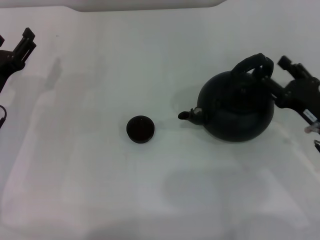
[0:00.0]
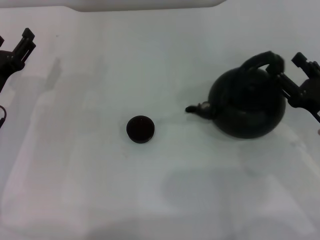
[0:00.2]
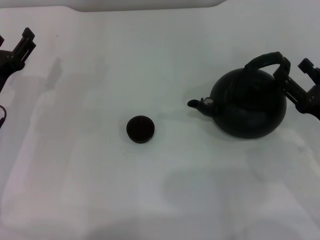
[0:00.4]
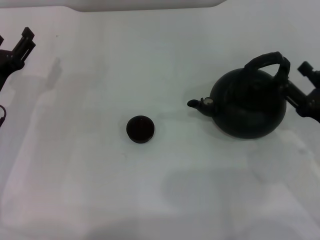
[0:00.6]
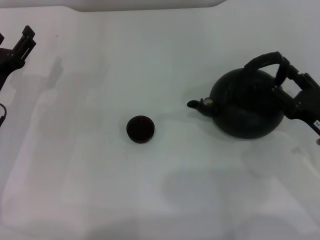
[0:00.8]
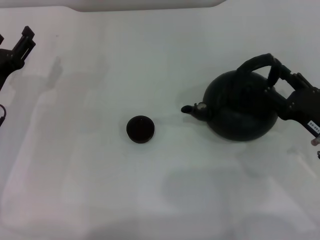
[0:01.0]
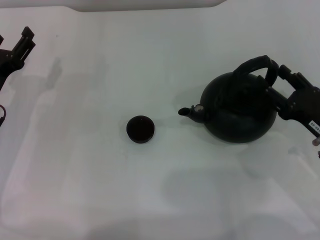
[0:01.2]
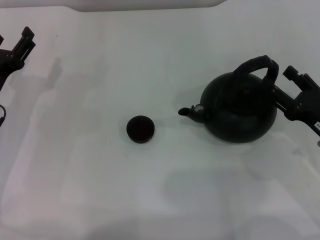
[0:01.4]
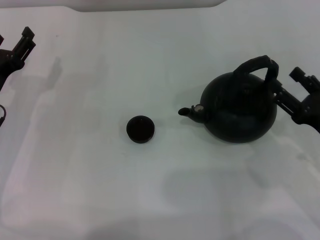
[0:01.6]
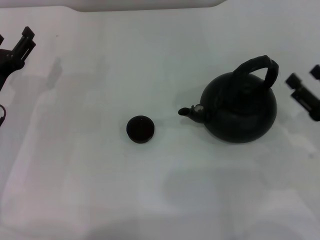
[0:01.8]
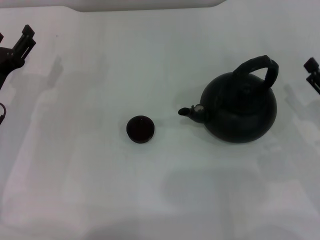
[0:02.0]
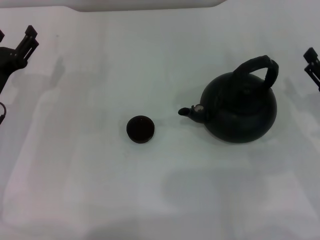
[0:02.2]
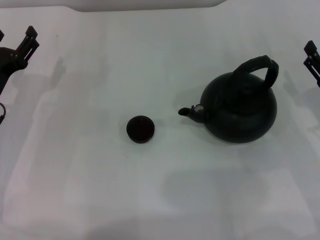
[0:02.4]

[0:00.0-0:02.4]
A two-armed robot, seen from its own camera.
Task of the whole recording: Grasp the handle of the teapot with one hand and pour tea into the teacup.
0.0 to 1.2 s: The grippers move only a little.

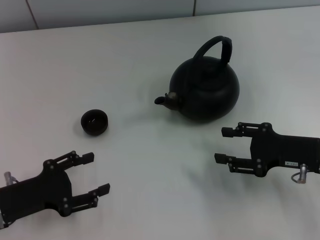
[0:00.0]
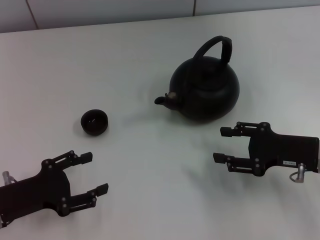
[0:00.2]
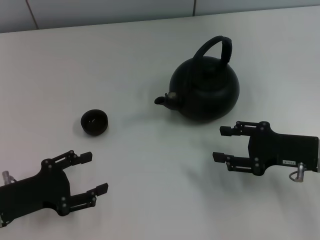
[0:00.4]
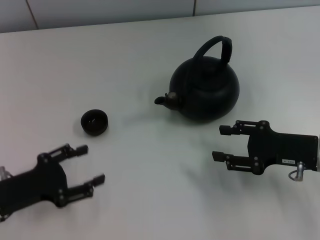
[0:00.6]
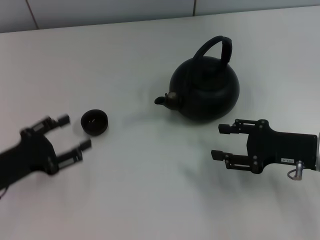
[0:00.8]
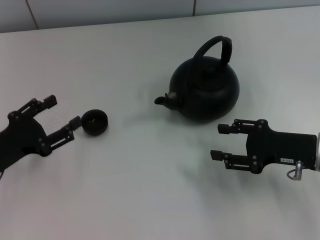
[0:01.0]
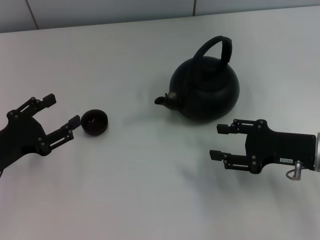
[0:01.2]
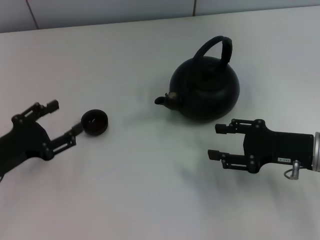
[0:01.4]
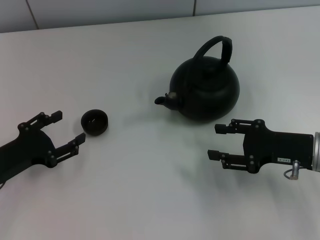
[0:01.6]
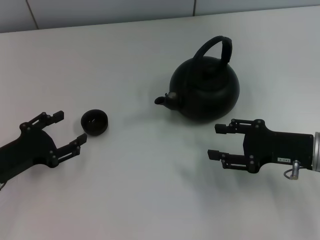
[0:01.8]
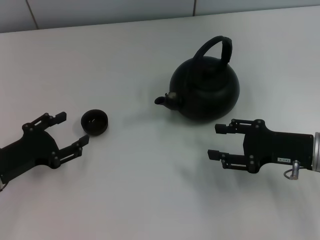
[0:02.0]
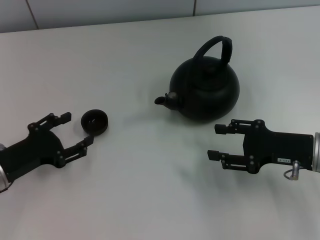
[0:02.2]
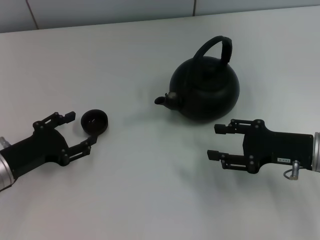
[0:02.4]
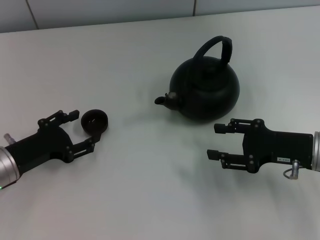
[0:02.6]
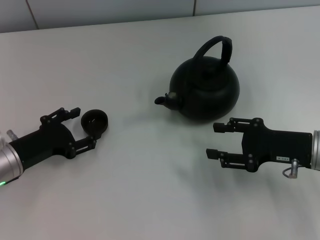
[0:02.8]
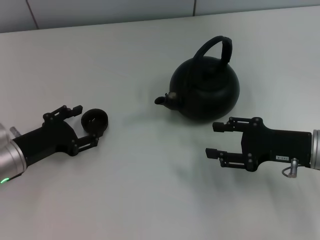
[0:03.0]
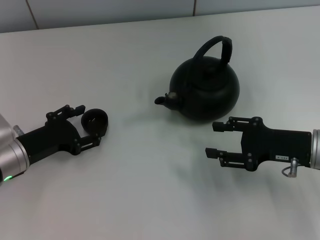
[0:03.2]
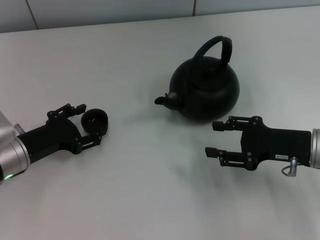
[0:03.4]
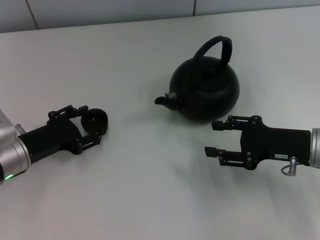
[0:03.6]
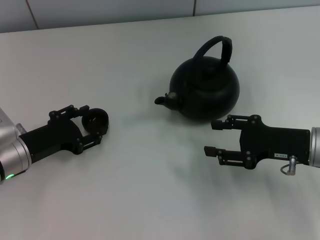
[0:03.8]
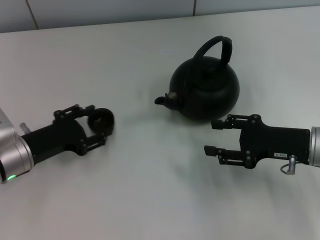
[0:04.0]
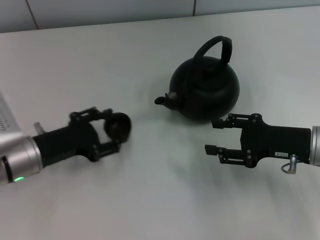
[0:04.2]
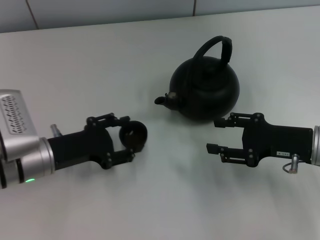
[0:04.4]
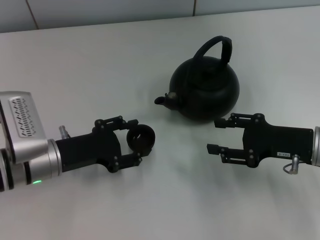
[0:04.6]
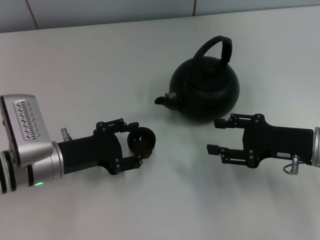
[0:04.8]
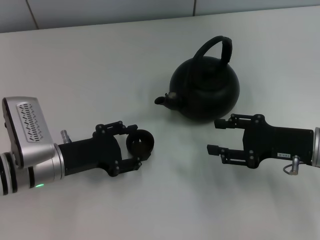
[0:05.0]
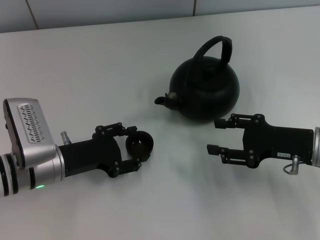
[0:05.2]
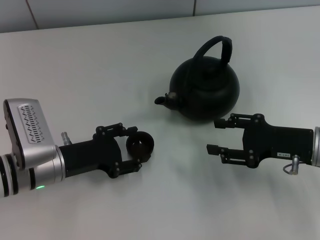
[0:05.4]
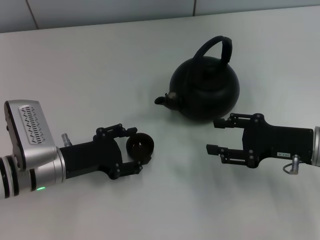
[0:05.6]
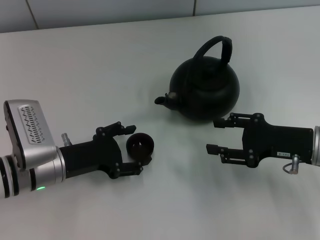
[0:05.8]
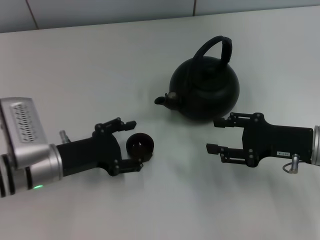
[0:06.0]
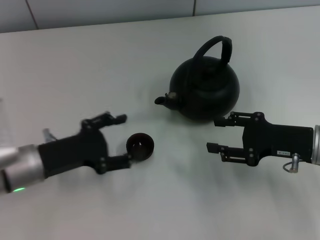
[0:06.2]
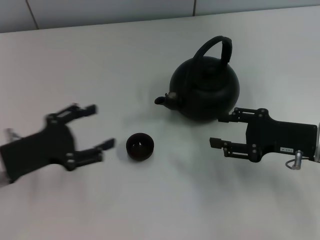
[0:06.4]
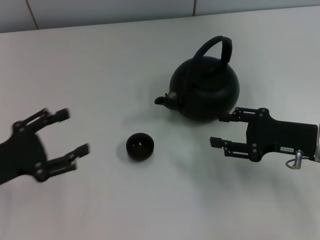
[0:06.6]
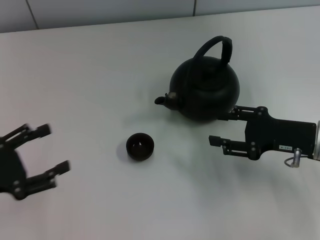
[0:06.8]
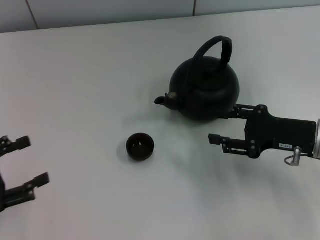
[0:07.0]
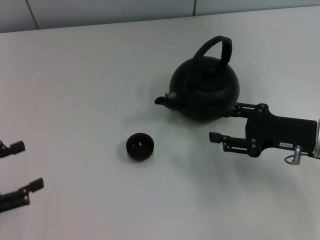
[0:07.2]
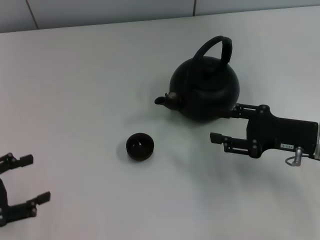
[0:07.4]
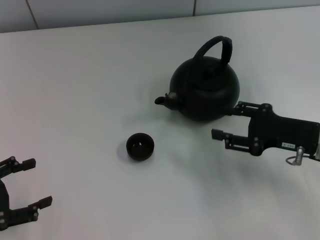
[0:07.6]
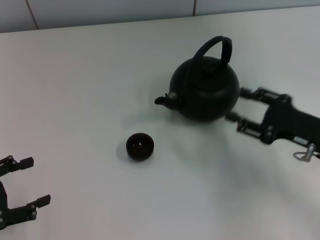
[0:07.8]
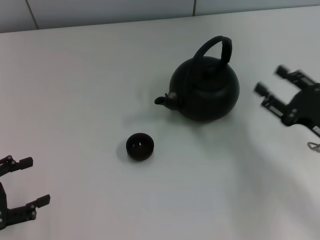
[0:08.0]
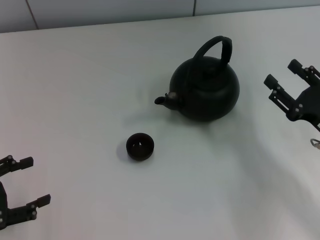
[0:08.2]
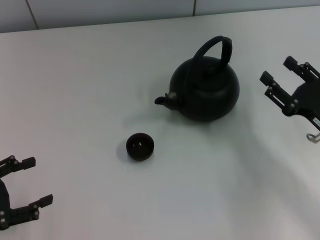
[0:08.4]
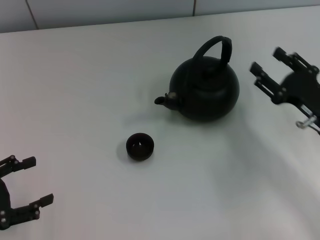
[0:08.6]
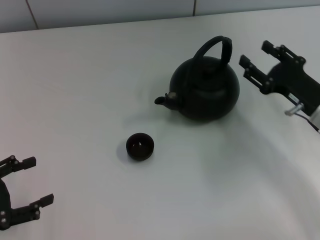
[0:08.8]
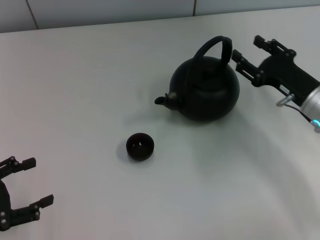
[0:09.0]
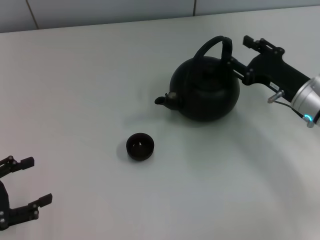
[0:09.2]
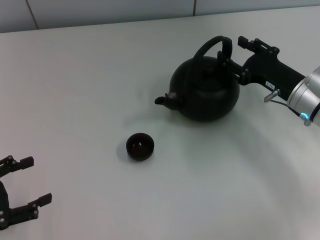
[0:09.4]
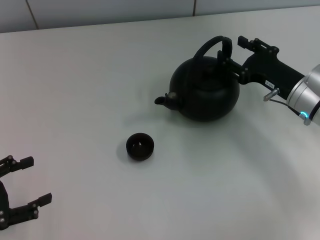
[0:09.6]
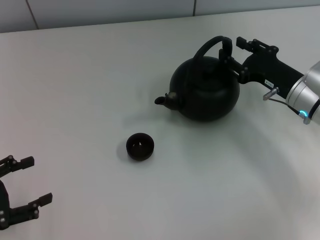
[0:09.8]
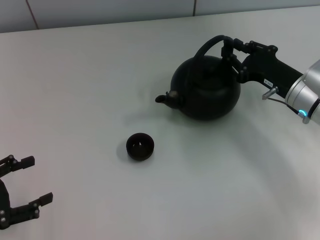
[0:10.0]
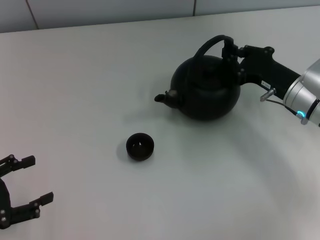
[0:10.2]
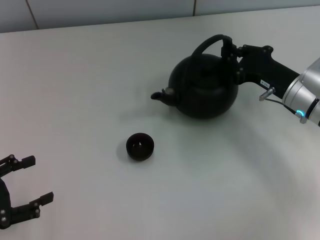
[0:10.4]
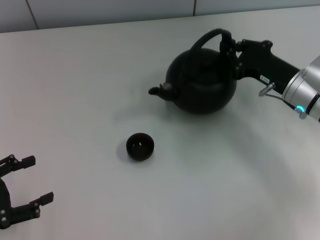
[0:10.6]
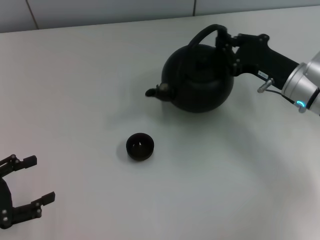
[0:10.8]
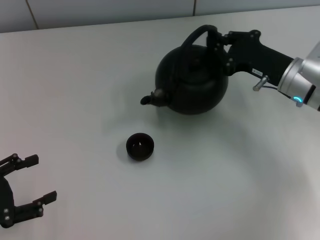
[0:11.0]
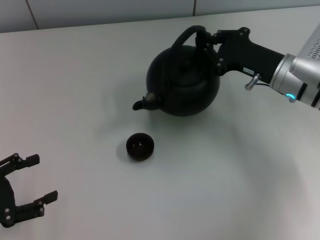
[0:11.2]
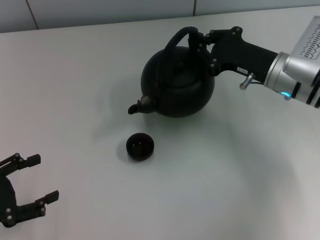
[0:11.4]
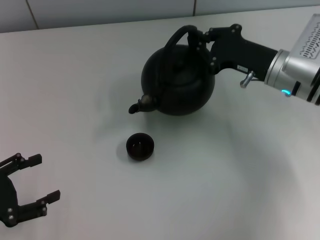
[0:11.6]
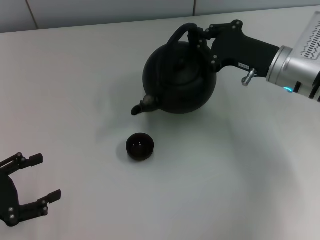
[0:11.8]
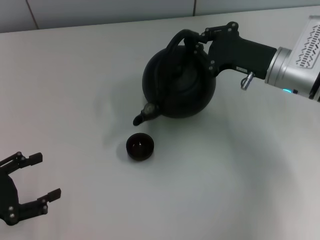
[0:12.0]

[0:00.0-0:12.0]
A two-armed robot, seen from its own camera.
Task of the whole recording: Grasp the handle of the teapot with one hand and pour tea into the teacup.
Step, 0.0 to 4.0 s: Pick up the teacup with the left gripper.
Step, 4.2 to 6.2 s: Place the teacup in the center of view with the left gripper.
Step, 6.4 to 10.8 s: Pick up the teapot with the right gripper.
1.6 to 3.0 s: The grippers make only small movements.
3.0 to 4.4 s: The left gripper closes its fingers.
4.4 to 6.0 s: The left gripper opens.
6.0 to 7.6 s: The left gripper is displaced to the left and backward by approximately 15 cm.
7.6 to 9.0 s: The right gripper shifts by roughly 5 cm.
9.0 to 10.4 s: The right gripper closes.
10.4 to 12.0 s: The right gripper shifts by approximately 5 cm.

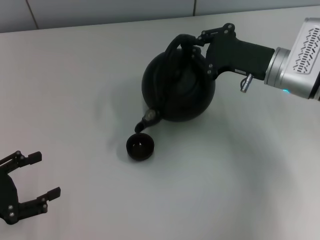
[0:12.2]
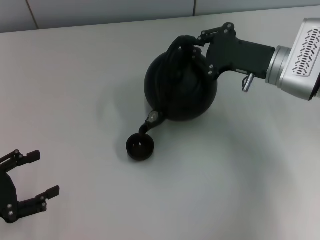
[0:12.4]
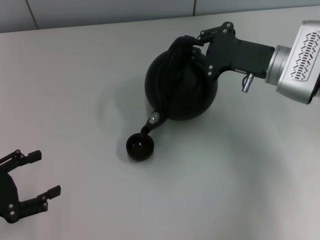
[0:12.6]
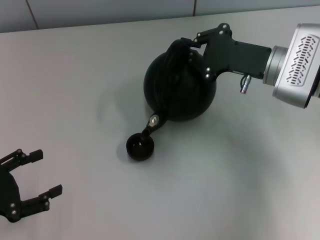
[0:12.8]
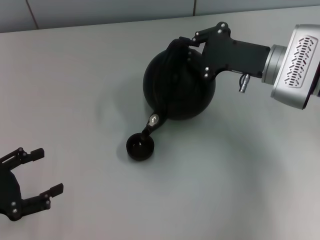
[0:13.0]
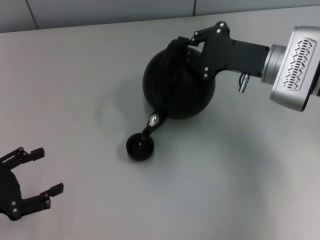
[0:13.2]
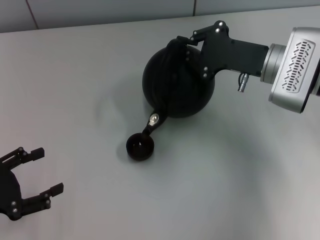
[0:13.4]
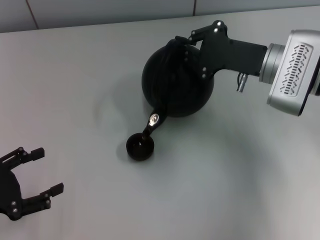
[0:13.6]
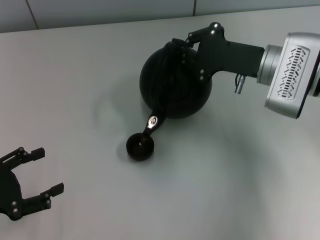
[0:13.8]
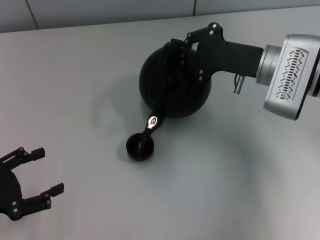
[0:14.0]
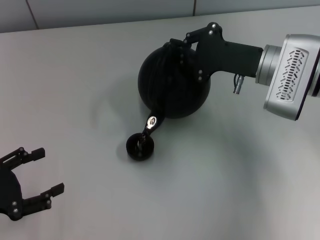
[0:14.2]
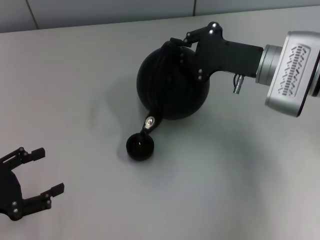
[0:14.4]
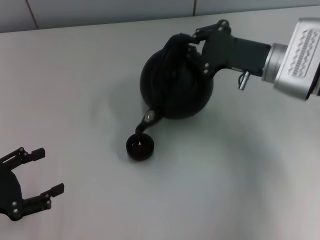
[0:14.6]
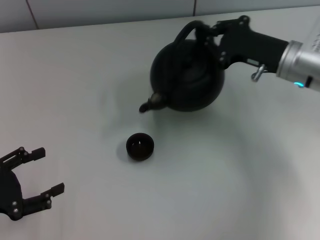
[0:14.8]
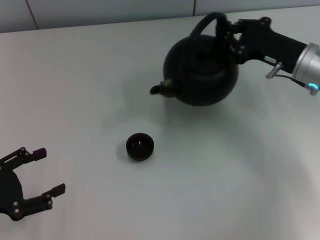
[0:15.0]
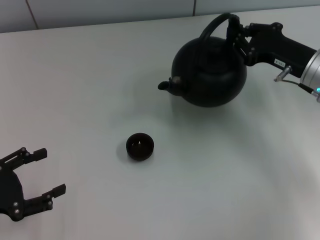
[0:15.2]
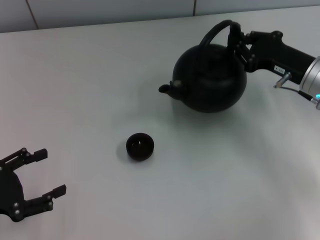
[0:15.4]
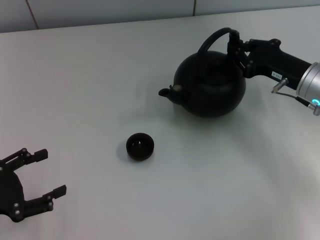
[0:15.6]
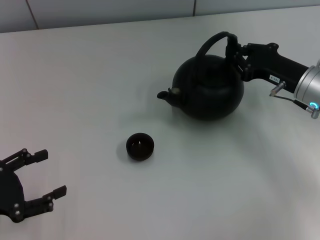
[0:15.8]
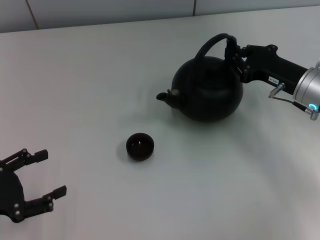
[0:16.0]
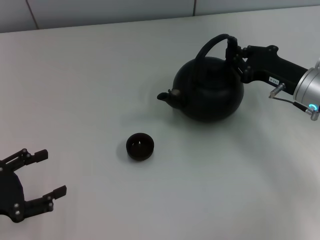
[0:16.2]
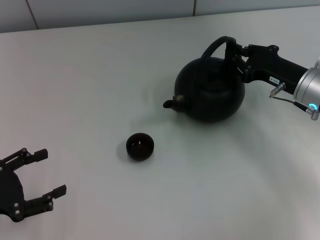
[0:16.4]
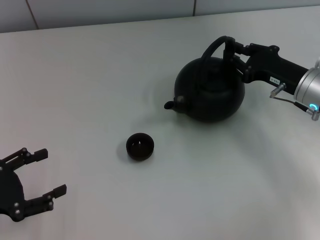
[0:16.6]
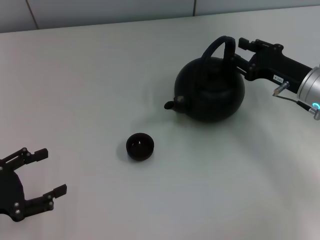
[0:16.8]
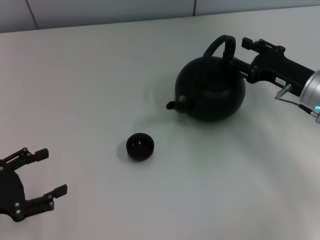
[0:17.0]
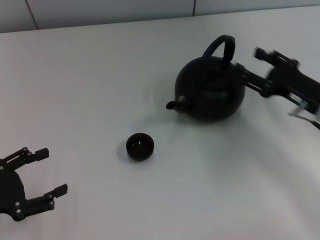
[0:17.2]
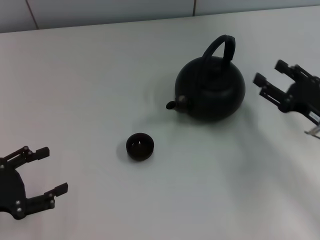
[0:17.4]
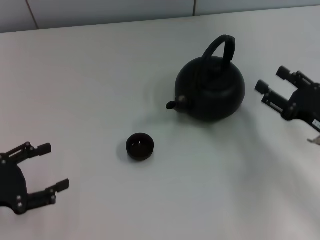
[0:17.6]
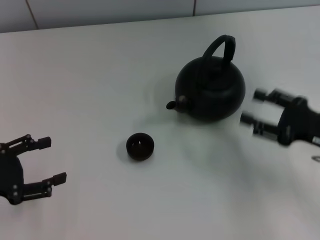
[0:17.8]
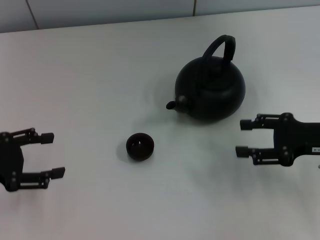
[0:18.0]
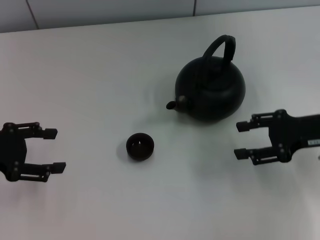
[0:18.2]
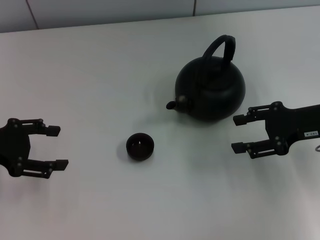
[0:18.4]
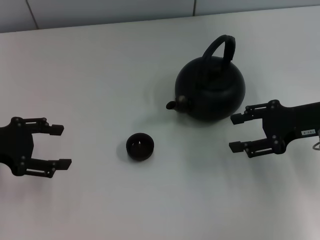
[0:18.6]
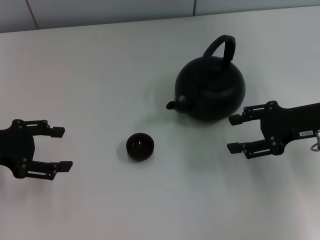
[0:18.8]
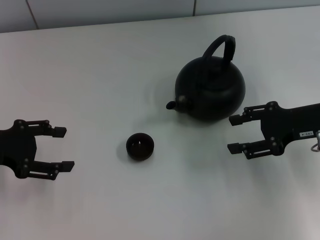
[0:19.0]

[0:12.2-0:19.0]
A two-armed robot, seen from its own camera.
Task of the whole recording: Grasp the handle of the teapot with one hand and pour tea into the teacup.
Step, 15.0 to 17.2 s: Put down the teapot with the right gripper.
12.2 to 13.6 s: There are only small adjustments of the grippers.
13.6 to 15.0 s: The right gripper heads to the right, covering roughly 5 cm.
15.0 to 16.2 s: The grippers make only small movements.
16.2 to 17.6 s: The right gripper travels backward by approximately 10 cm, and opens up.
17.6 to 19.0 s: The left gripper goes about 10 cm forward and upward, while the right gripper moves upward and forward, about 10 cm.

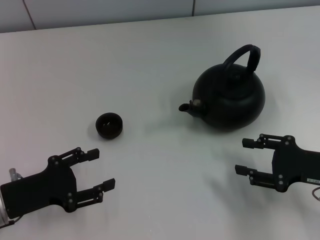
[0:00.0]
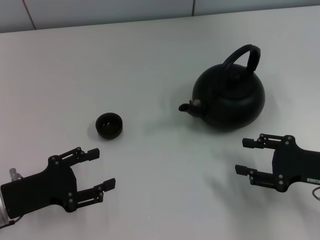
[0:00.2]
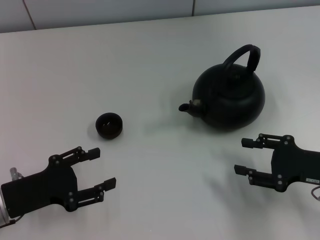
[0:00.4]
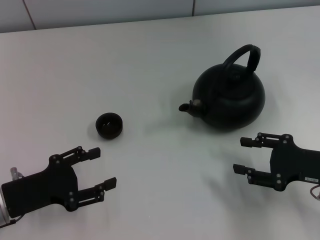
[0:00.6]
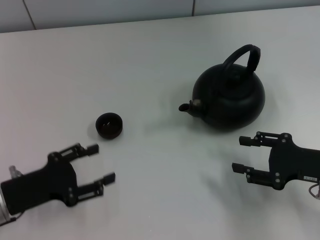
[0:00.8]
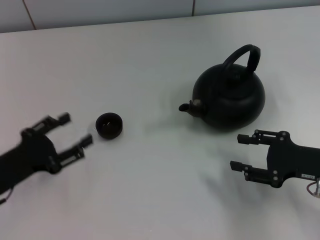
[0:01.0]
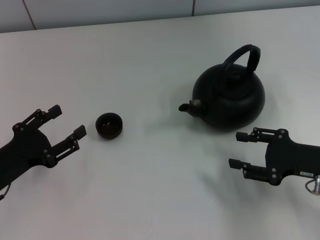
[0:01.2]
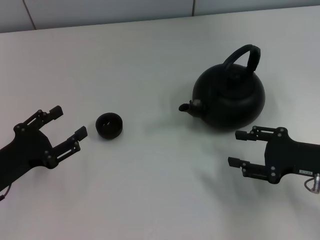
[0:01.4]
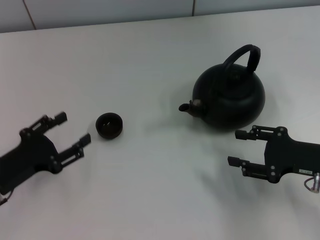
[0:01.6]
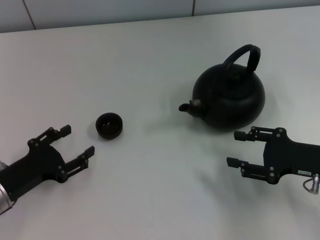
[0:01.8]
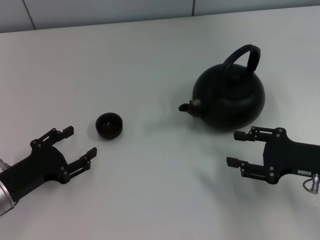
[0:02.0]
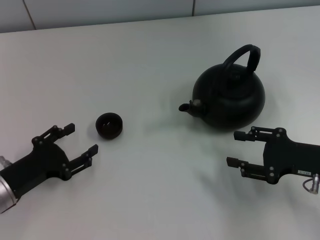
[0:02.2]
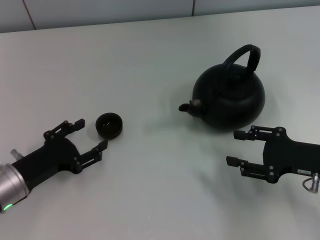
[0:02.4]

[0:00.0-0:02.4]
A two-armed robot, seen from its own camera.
Task of the whole recording: Grasp the handle of the teapot with one hand and pour tea into the teacup.
1.2 to 2.4 s: The grippers stay close to where they were, moving slightly.
